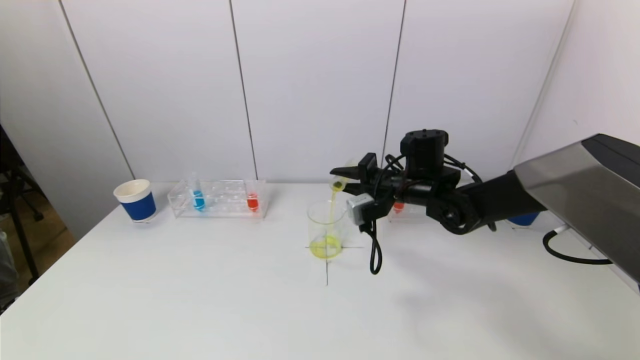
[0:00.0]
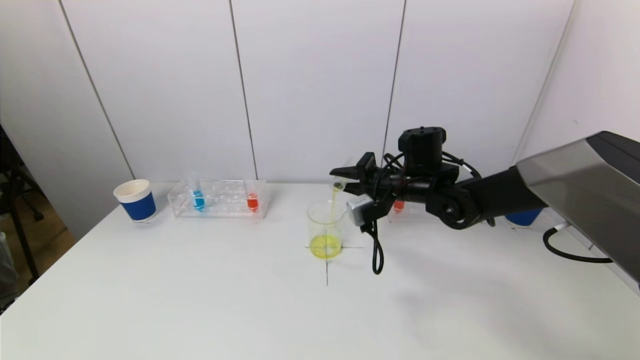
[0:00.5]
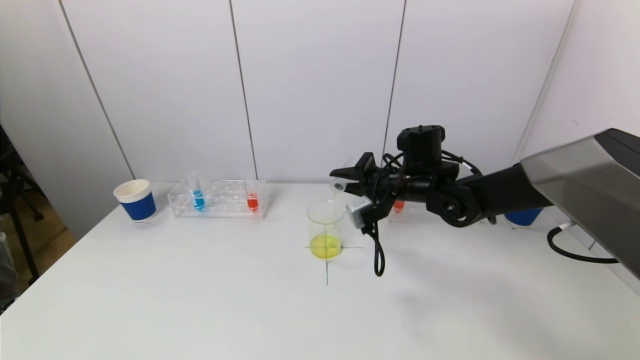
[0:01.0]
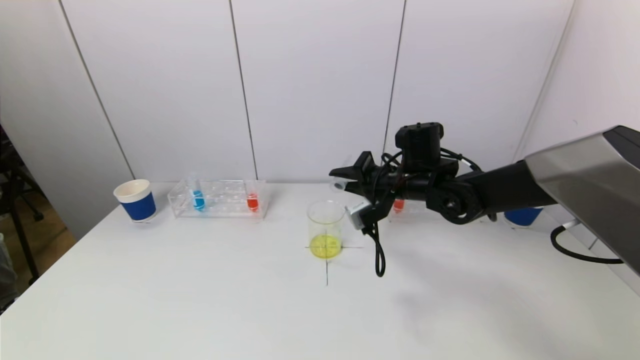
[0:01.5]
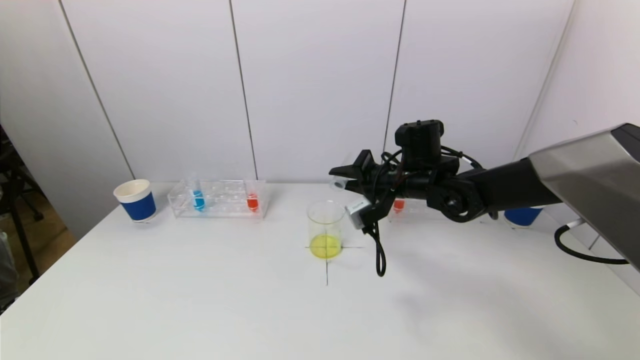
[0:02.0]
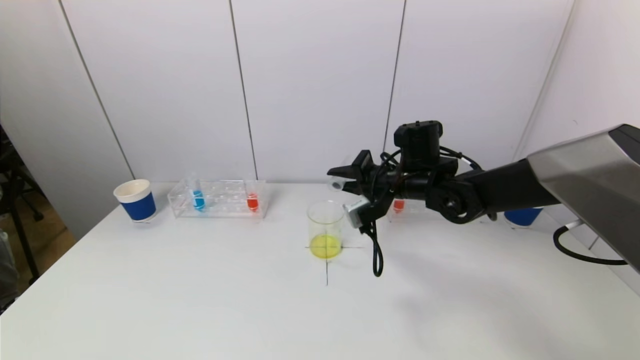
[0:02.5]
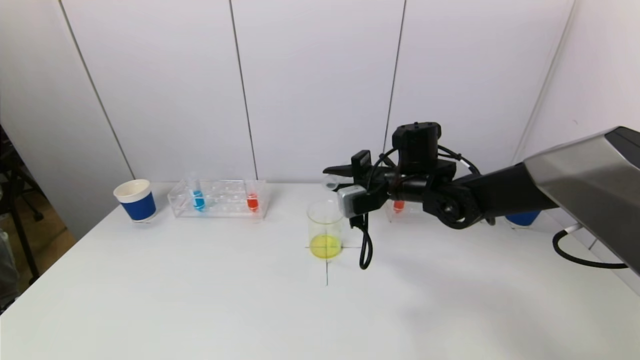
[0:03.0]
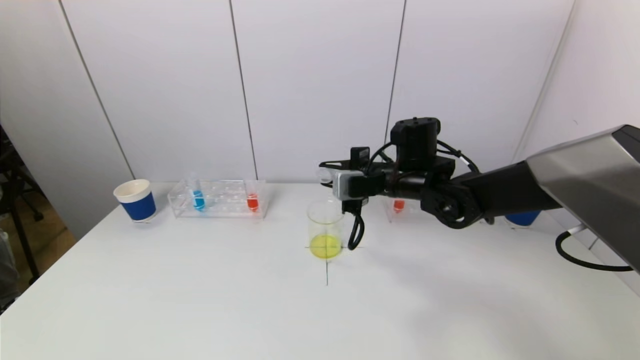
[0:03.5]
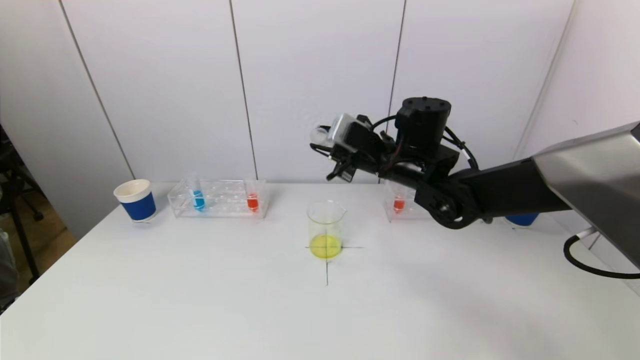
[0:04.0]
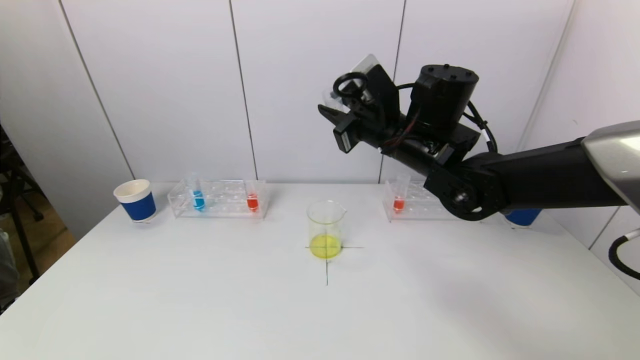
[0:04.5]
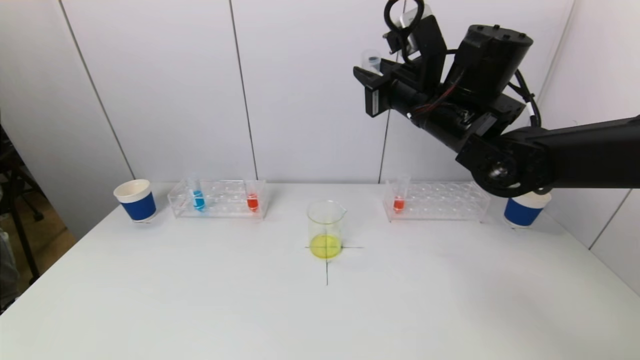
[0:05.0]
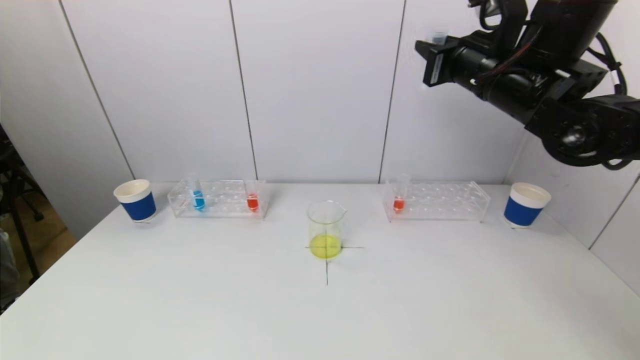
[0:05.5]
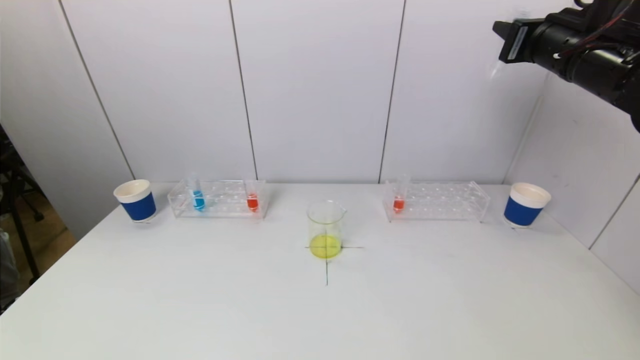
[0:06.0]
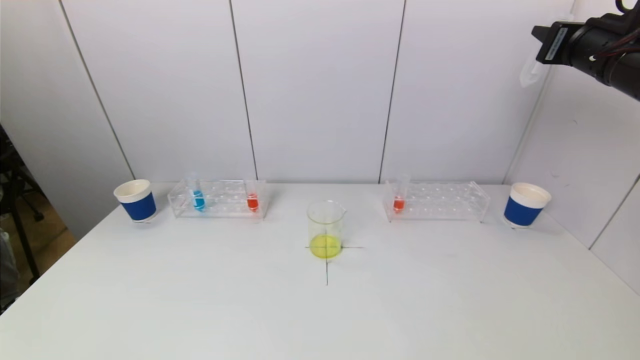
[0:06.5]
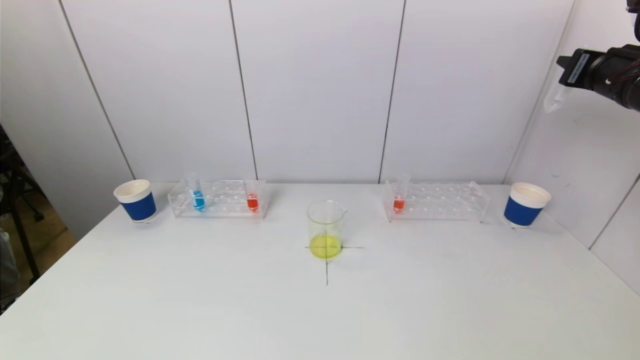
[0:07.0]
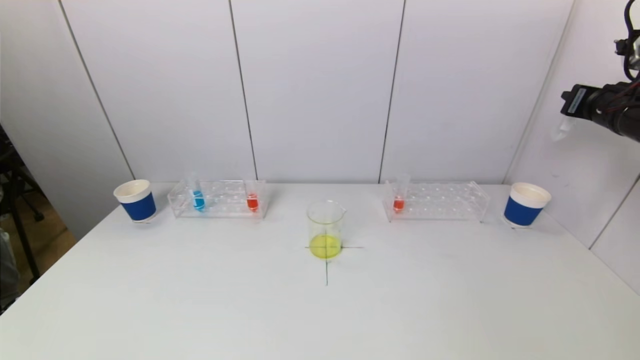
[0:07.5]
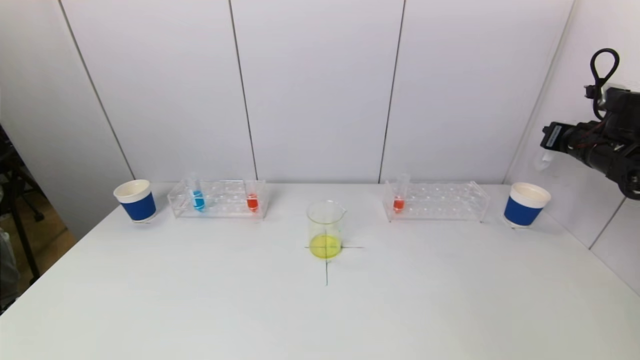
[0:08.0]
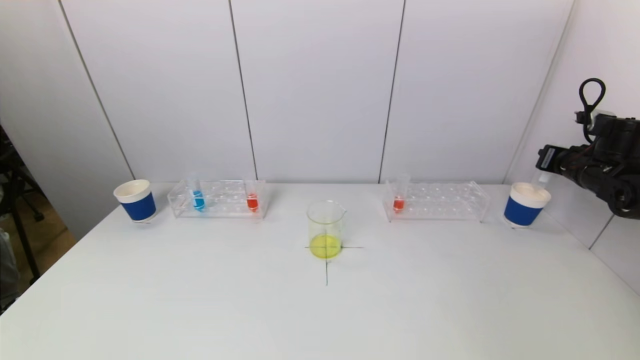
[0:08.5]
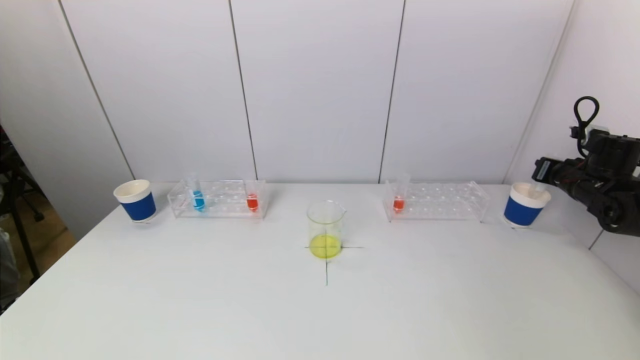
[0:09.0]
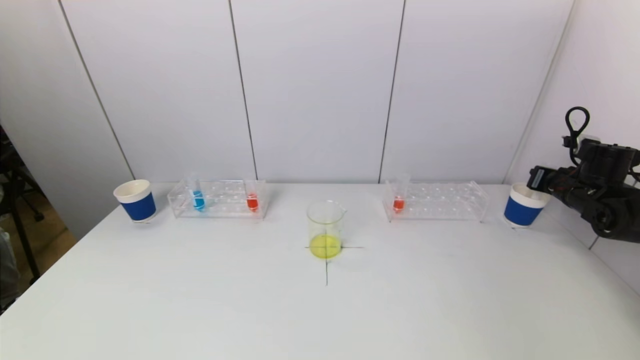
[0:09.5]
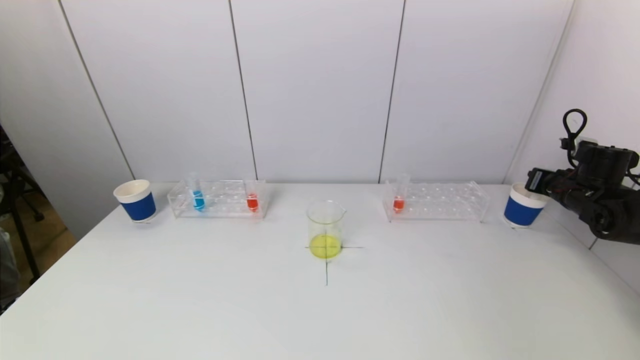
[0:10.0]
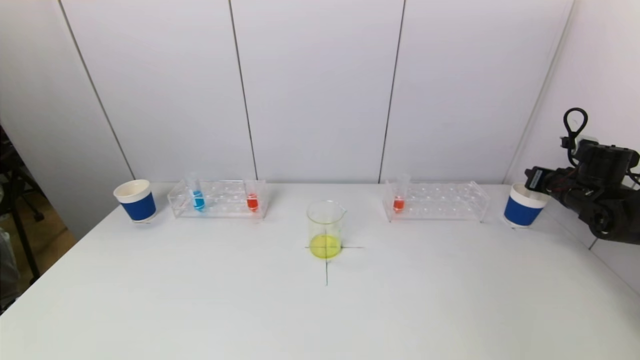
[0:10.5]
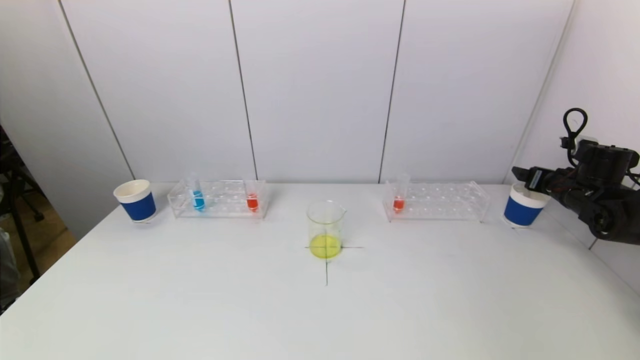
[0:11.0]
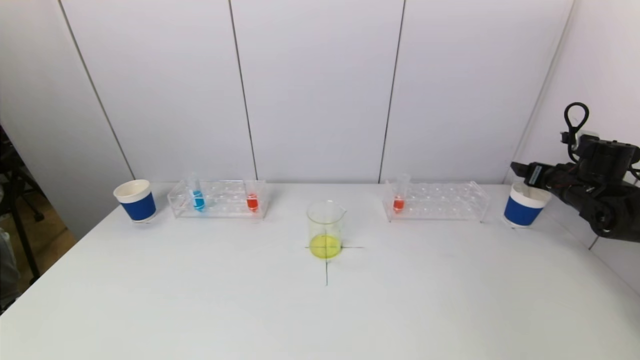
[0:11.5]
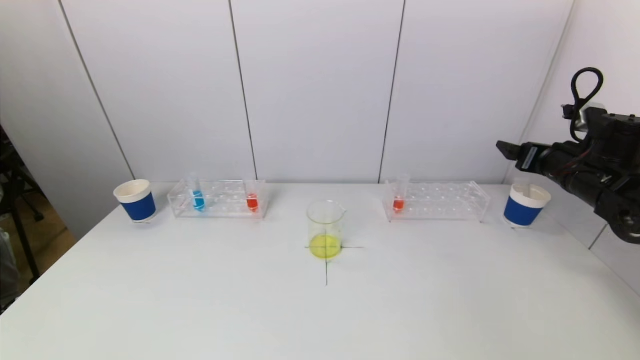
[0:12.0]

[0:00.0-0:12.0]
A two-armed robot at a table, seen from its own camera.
Task of the whole recording: pick up a test tube with pigment on left test tube rack and a test tube with pigment on right test tube rack by grippers and pour them into the beaker.
Step, 0:00.0 to 0:02.5: Pour the yellow reagent into the graduated cylinder with the right gripper.
Step, 0:03.0 to 0:10.5: Place the test tube into the paper cup with the right gripper.
0:00.0 to 0:02.0: The grippers make only small movements.
0:02.0 to 0:04.0: The right gripper changes place by some 5 cm.
0:04.0 to 0:06.0: The right gripper is displaced to the right and upward by roughly 25 cm.
0:06.0 to 0:08.0: The right gripper moves to the right and downward, roughly 20 cm.
0:08.0 to 0:10.0: The right gripper travels downward by roughly 10 cm.
0:10.0 to 0:12.0: The right gripper shifts some 10 cm to the left, upward and backward, and opens up.

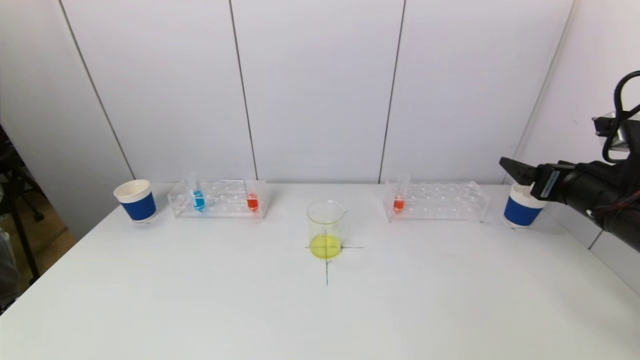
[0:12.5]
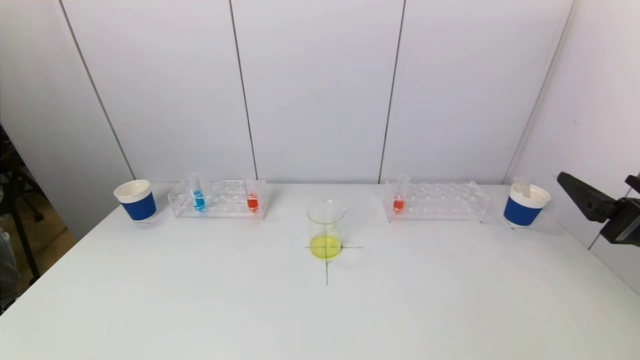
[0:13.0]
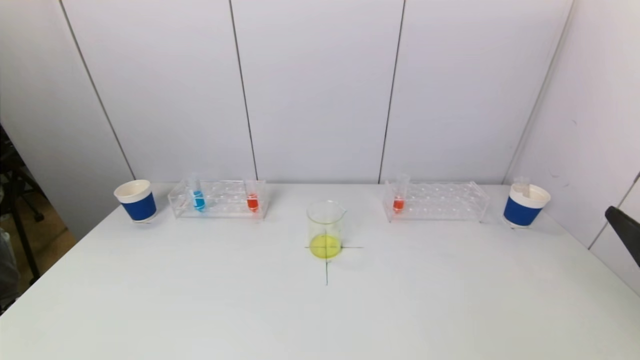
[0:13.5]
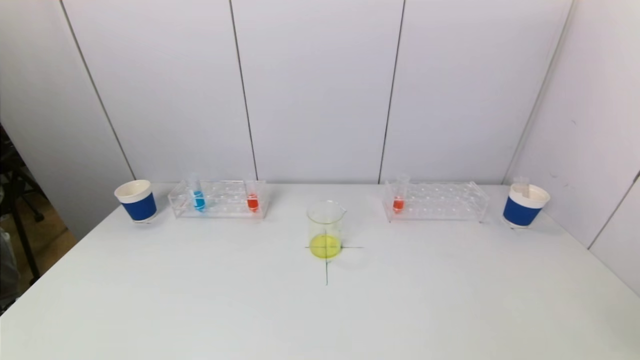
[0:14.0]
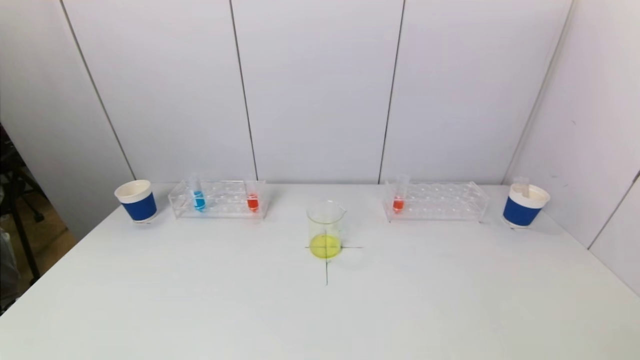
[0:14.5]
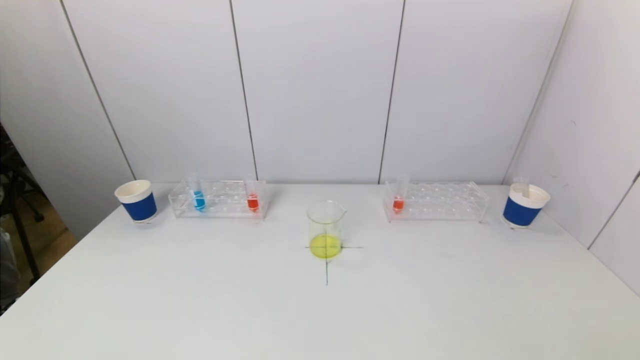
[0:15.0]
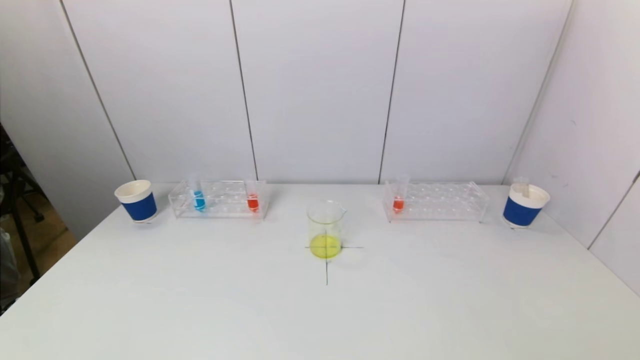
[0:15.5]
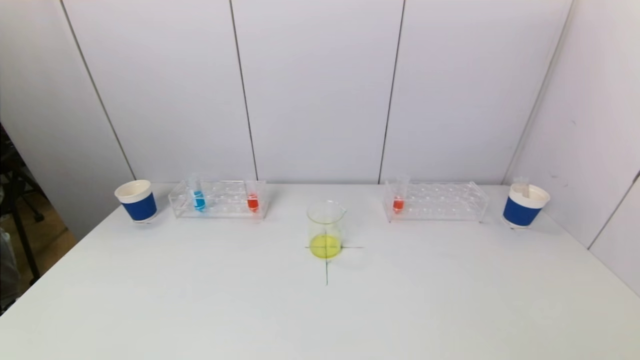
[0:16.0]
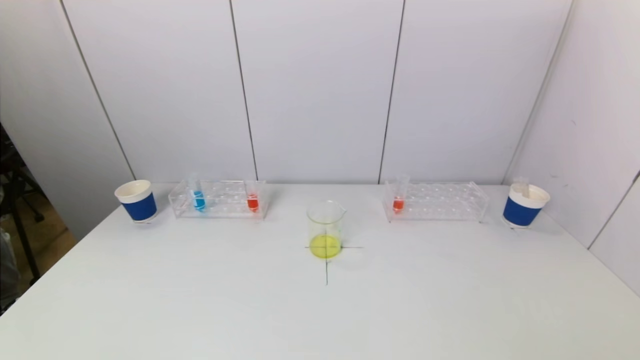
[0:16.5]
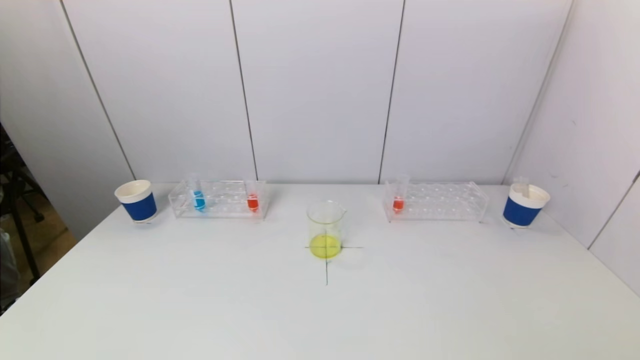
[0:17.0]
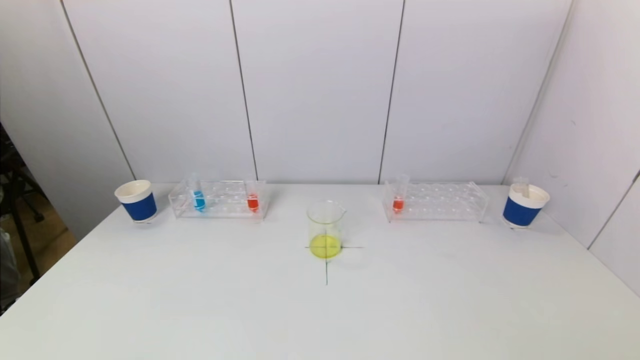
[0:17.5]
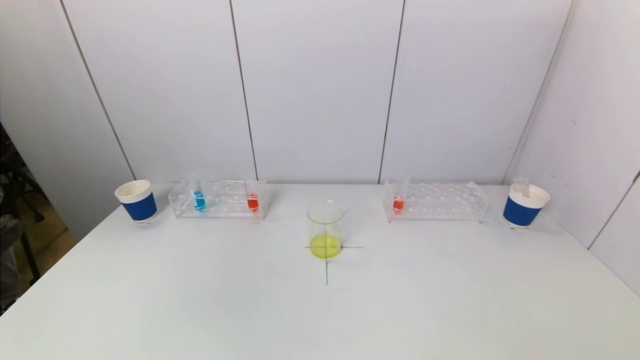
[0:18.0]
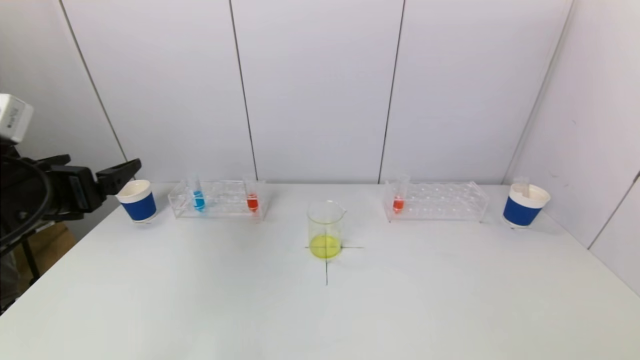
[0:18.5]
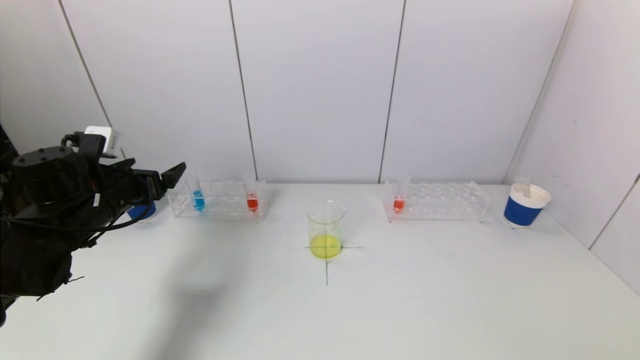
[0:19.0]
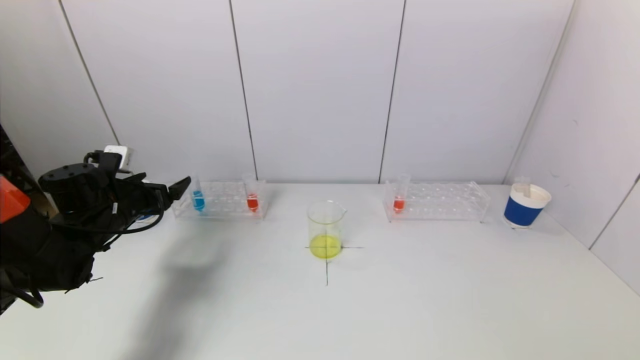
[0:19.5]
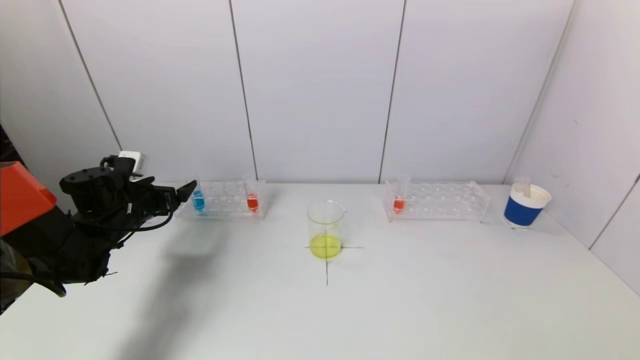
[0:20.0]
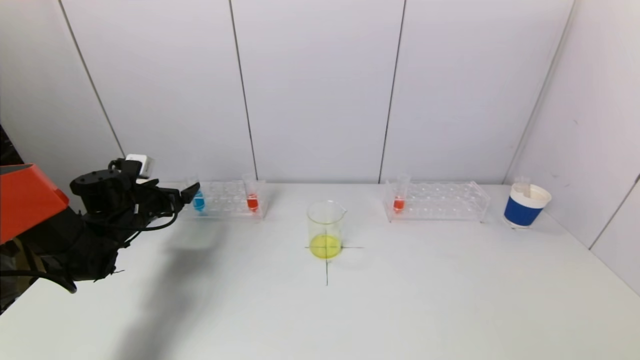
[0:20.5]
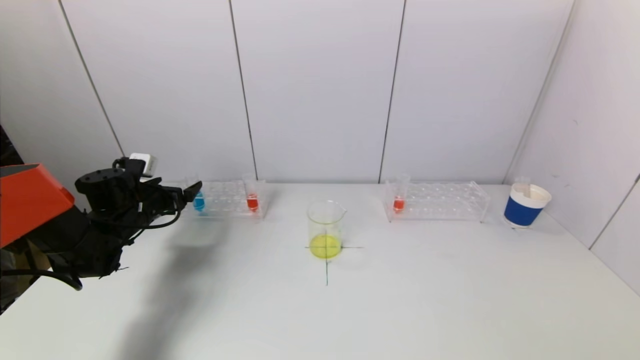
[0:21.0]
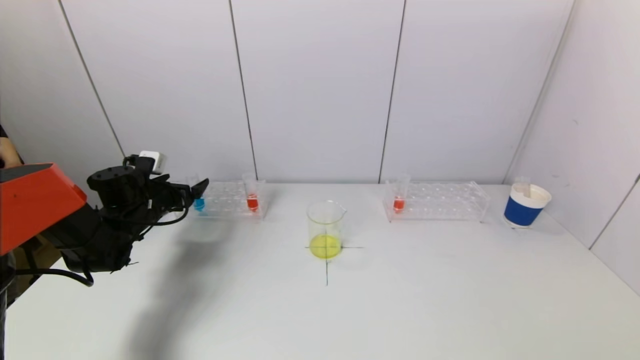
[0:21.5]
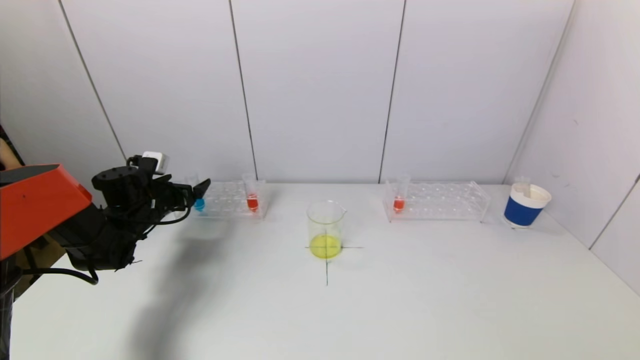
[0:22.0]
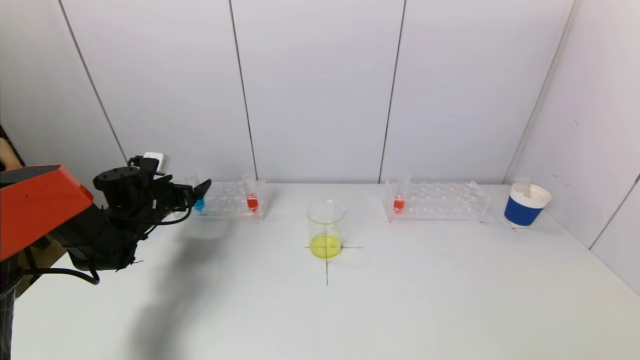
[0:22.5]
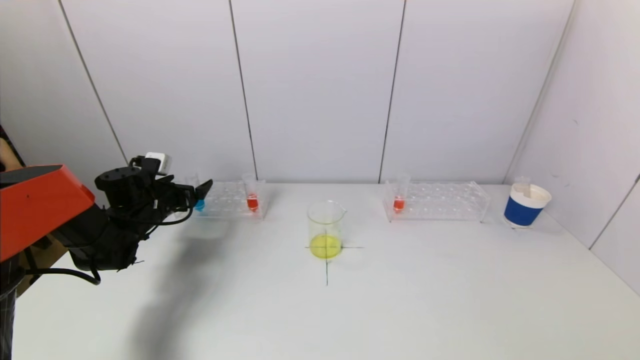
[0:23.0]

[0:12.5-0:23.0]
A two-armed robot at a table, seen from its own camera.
Task of the whole recording: pick up a test tube with pigment on left test tube rack and a test tube with pigment on right test tube rack by grippers and pour them into the beaker.
0:12.5 to 0:14.5: The right gripper heads backward, covering approximately 30 cm.
0:16.5 to 0:19.0: The left gripper heads forward, covering about 35 cm.
0:19.0 to 0:21.0: The left gripper travels forward and downward by roughly 10 cm.
0:21.0 to 0:23.0: The grippers move only a little.
